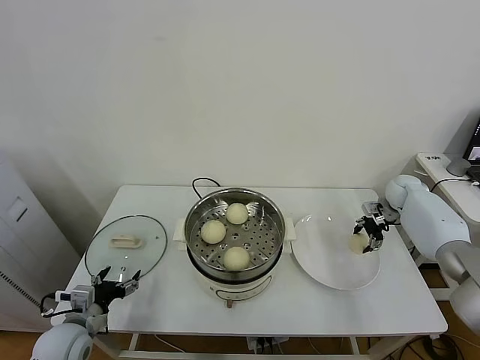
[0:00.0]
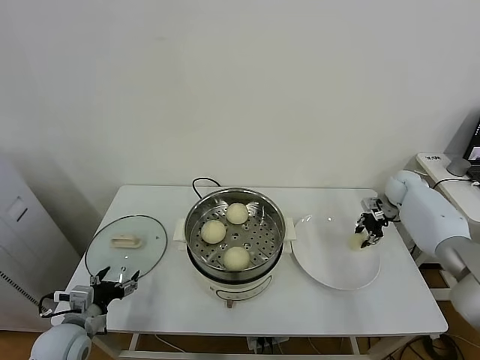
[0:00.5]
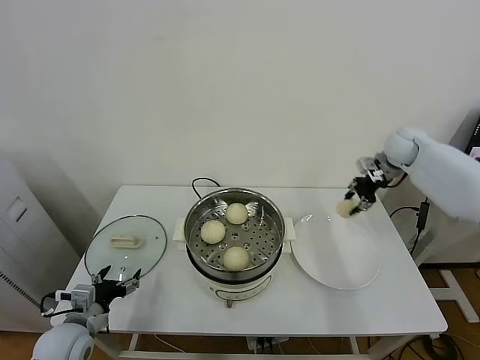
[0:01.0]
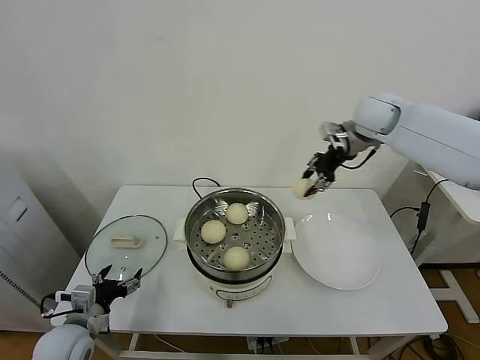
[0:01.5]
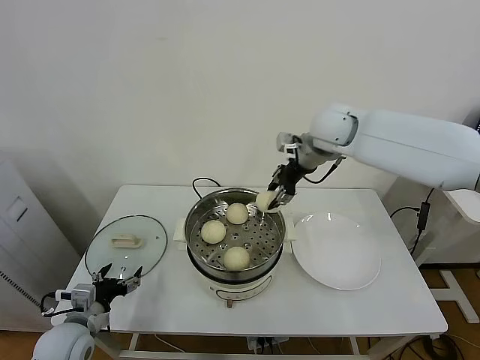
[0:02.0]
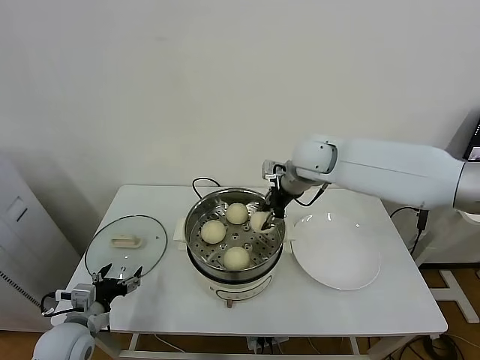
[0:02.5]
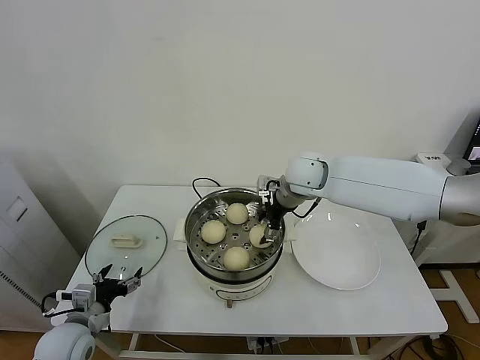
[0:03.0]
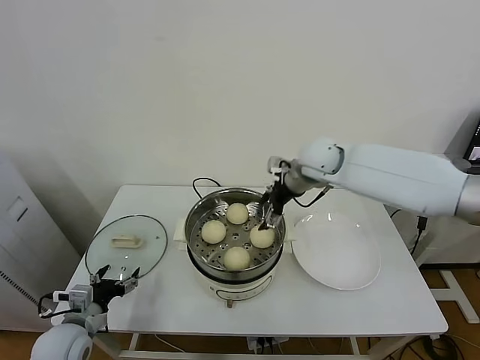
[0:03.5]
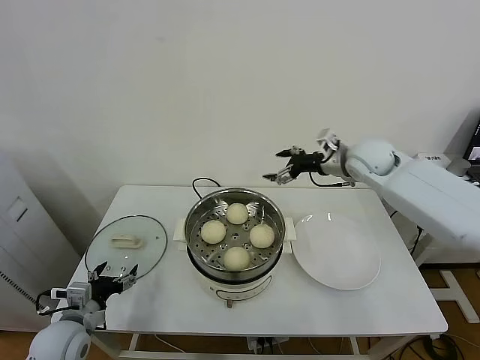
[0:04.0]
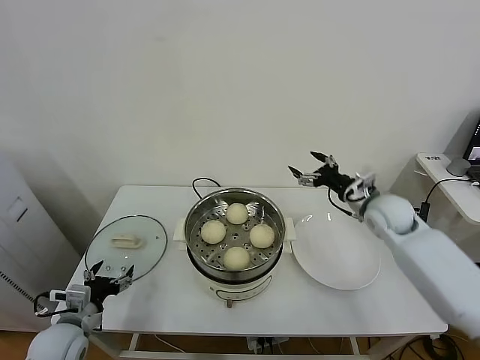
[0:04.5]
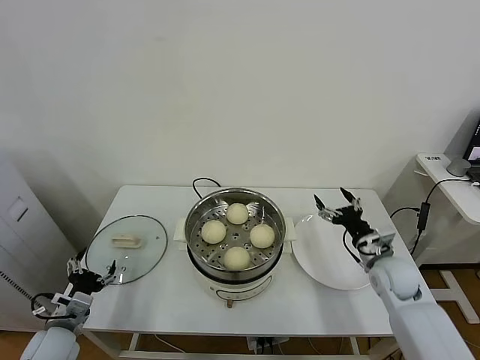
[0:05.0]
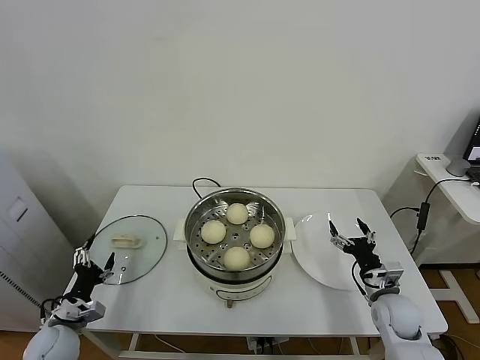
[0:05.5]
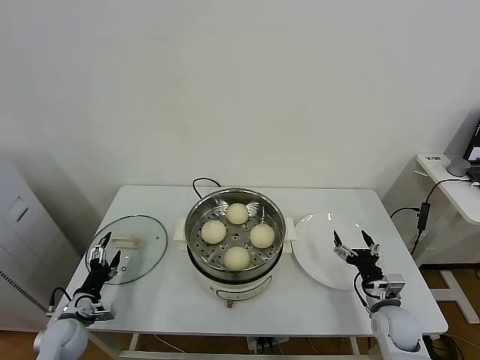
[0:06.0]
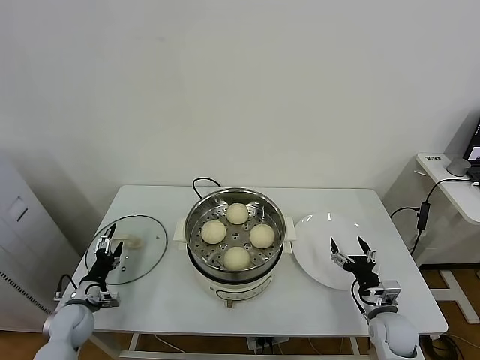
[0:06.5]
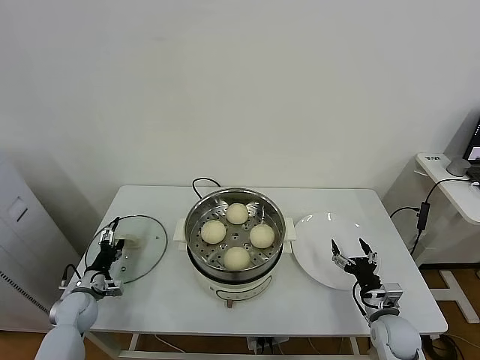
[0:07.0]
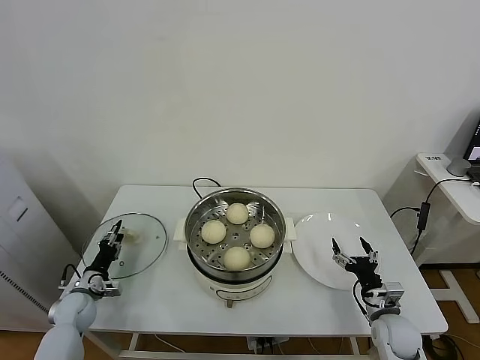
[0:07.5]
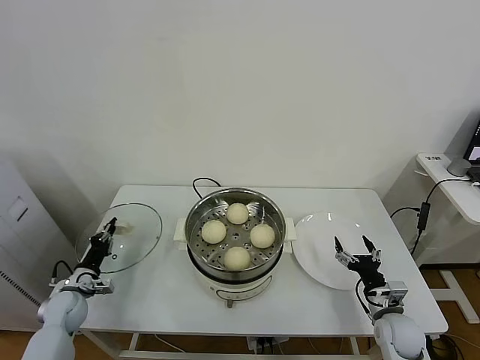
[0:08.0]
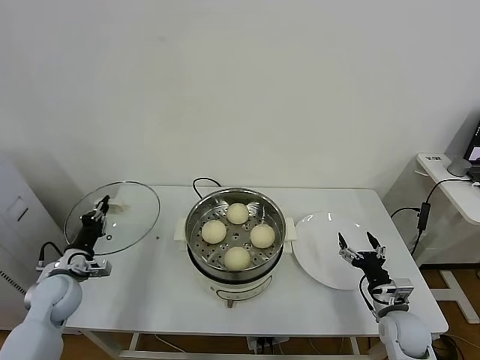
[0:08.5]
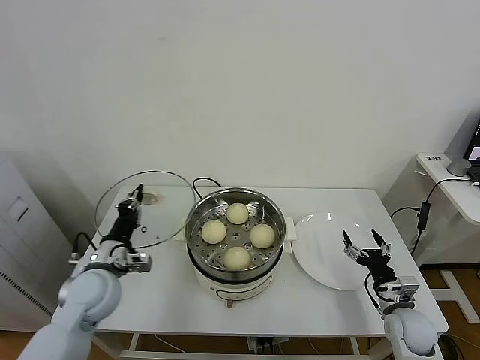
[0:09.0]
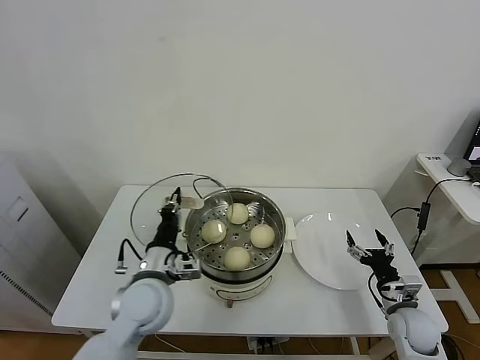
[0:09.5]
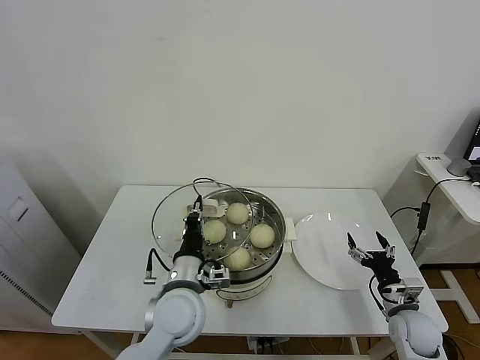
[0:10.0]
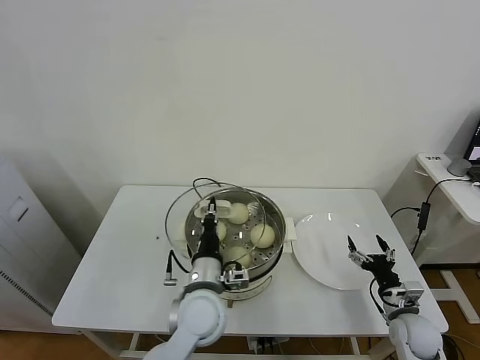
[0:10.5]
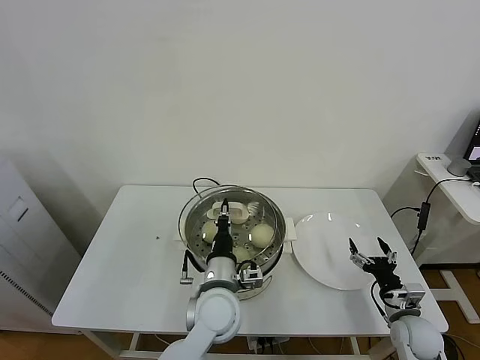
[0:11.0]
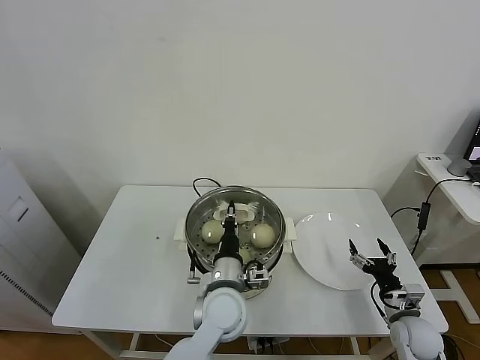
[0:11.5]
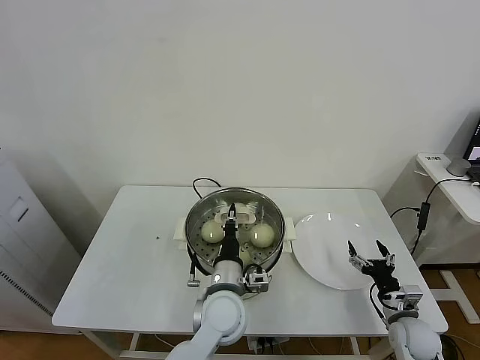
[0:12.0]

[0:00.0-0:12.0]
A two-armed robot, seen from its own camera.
Task of the whole recording: take steamed baozi put them in steamer.
Step, 0:00.5 to 0:03.0: Place the baozi on the steamer with right gripper.
Step, 0:03.5 to 0:07.5: Grasp the pot lid with left gripper.
0:00.0 to 0:02.0: The right gripper goes roughly 35 cm to the left and upward, and closes.
0:02.0 to 0:04.0: The right gripper travels to the right and downward by approximately 10 cm, and opens its fingers.
0:04.0 to 0:06.0: The right gripper travels downward and backward by approximately 40 cm. The left gripper shifts about 10 cm downward and to the left.
0:06.0 to 0:08.0: The left gripper moves forward, roughly 5 cm, and closes.
0:08.0 to 0:10.0: The left gripper heads to the right and upward, covering about 35 cm.
0:10.0 to 0:12.0: The left gripper heads to the right, covering approximately 10 cm.

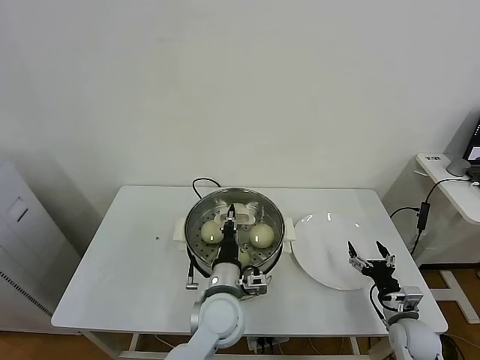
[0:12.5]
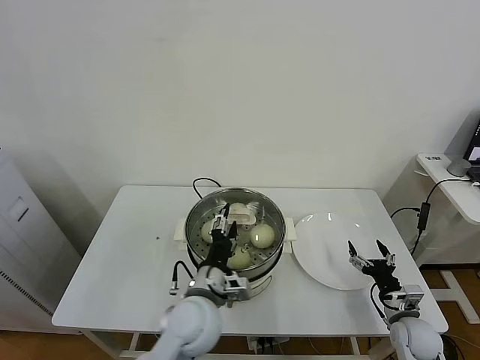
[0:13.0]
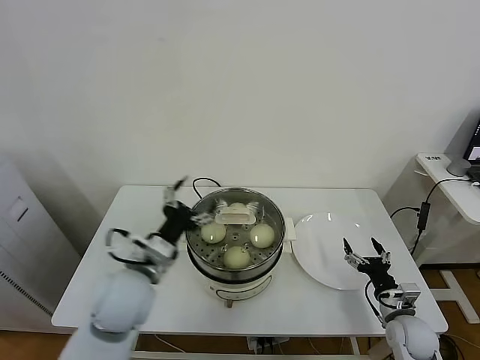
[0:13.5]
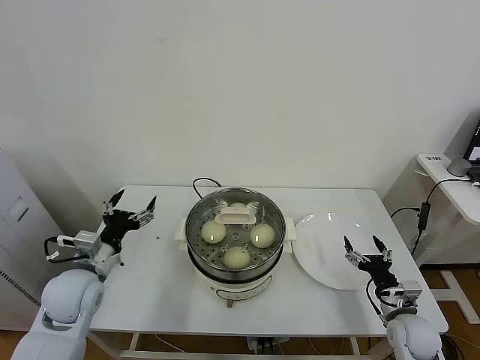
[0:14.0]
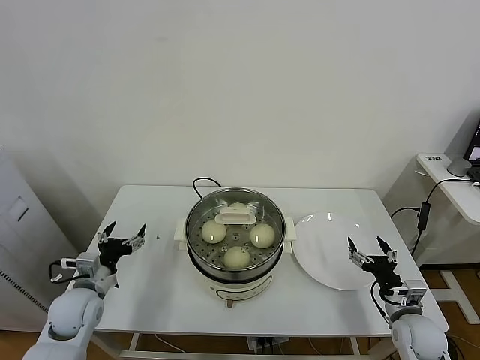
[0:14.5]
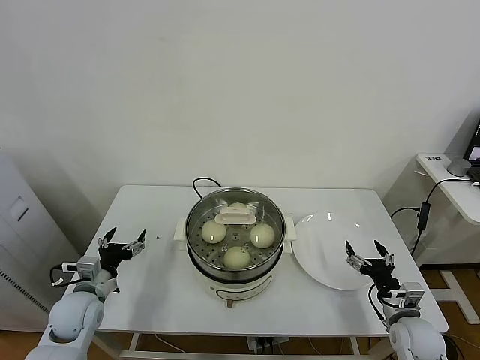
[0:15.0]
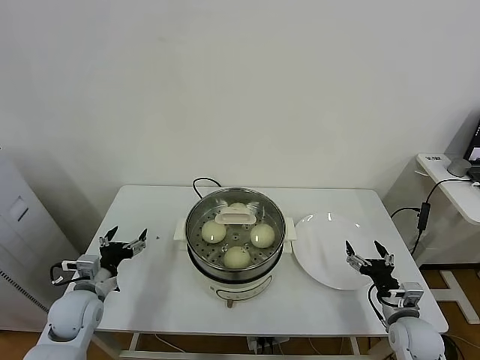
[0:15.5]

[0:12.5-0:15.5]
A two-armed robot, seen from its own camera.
Task of the whole recording: take steamed baozi put them in steamer.
0:12.5 to 0:14.0: The left gripper travels to the left by approximately 25 cm, and opens its fingers.
0:14.0 to 0:15.5: The left gripper is displaced downward by some 10 cm.

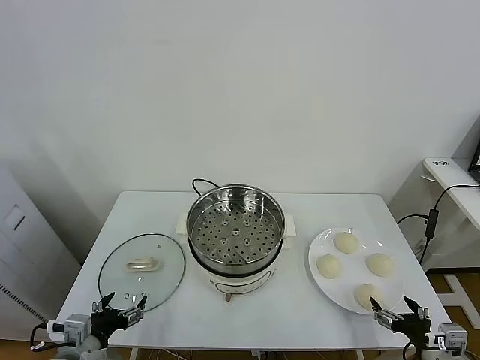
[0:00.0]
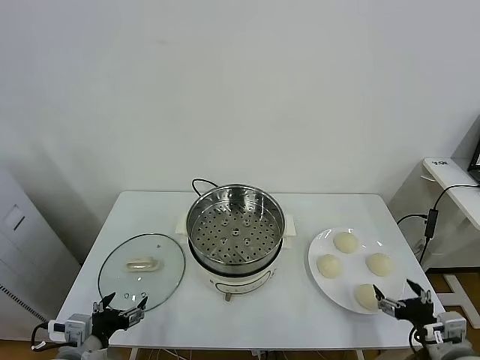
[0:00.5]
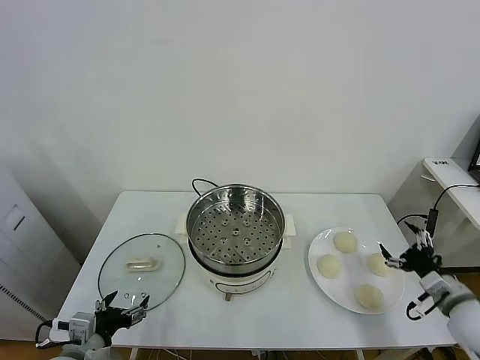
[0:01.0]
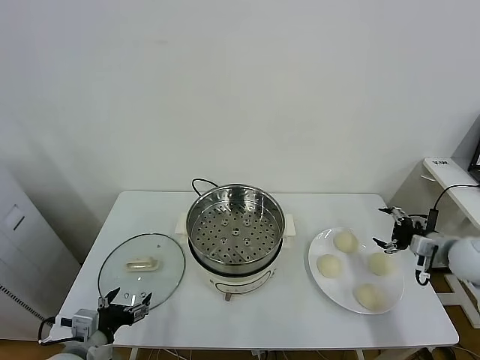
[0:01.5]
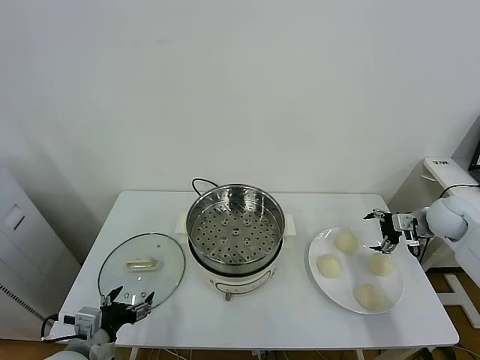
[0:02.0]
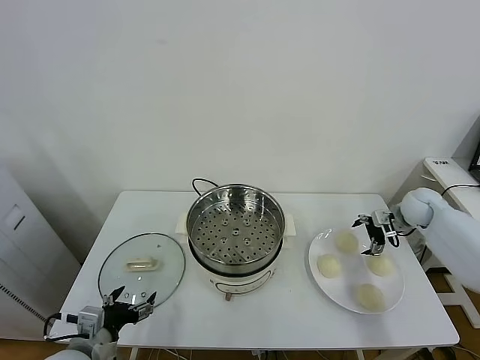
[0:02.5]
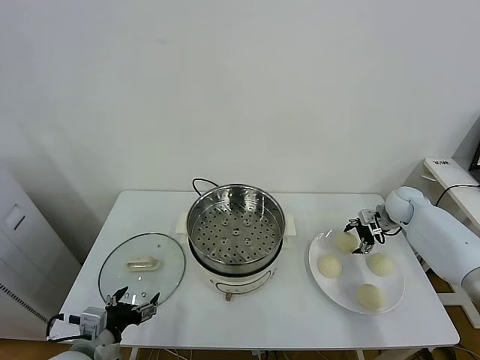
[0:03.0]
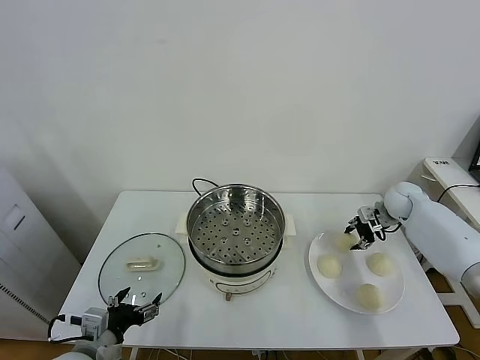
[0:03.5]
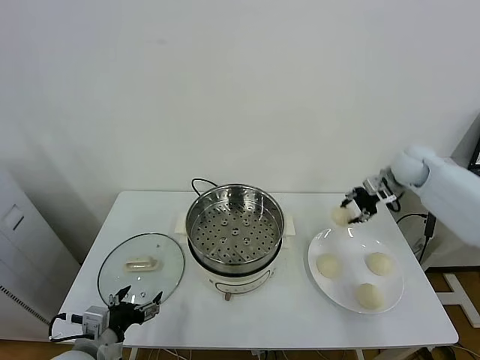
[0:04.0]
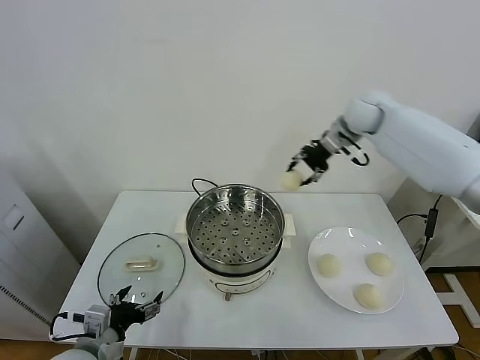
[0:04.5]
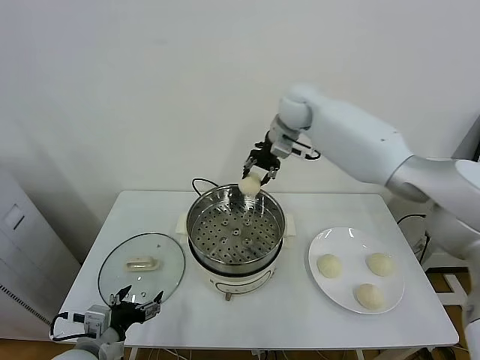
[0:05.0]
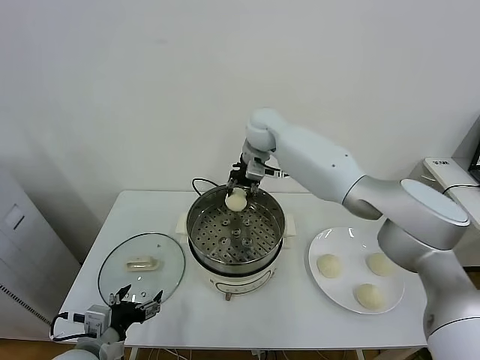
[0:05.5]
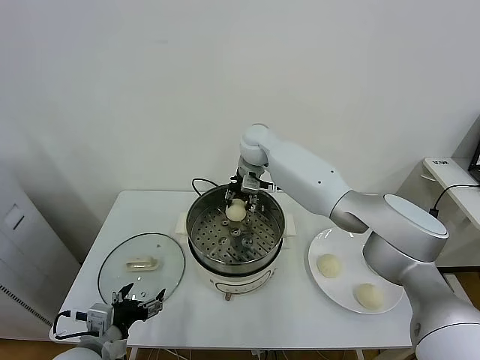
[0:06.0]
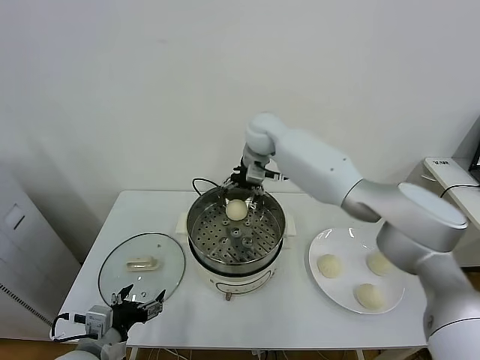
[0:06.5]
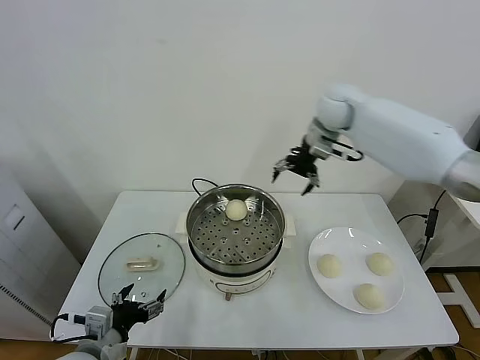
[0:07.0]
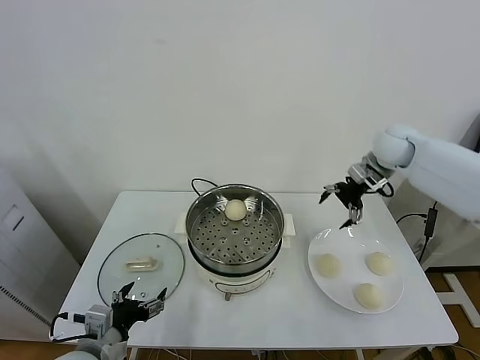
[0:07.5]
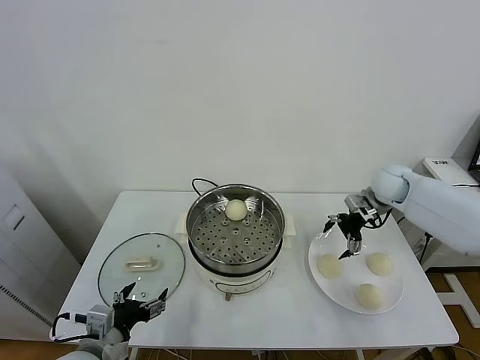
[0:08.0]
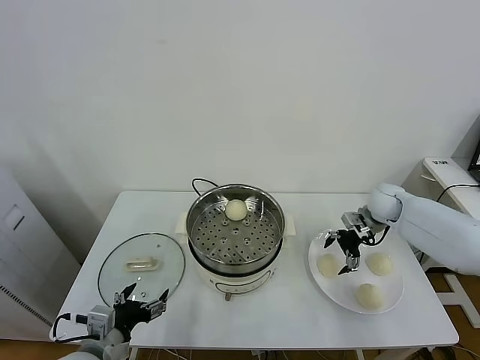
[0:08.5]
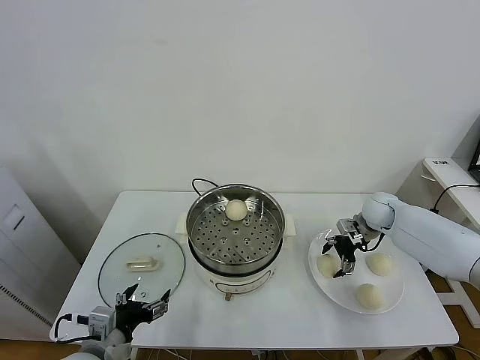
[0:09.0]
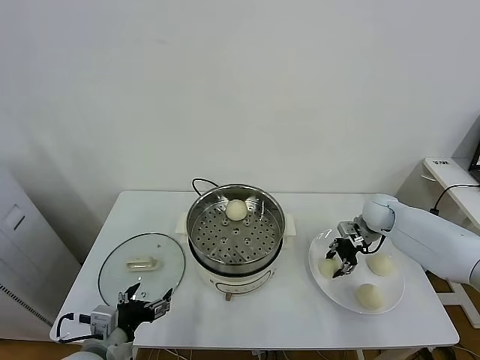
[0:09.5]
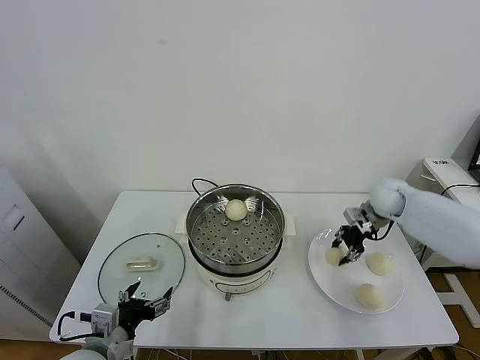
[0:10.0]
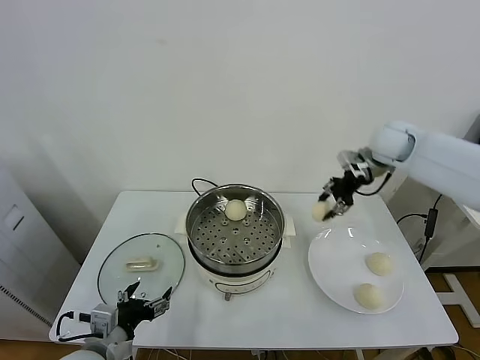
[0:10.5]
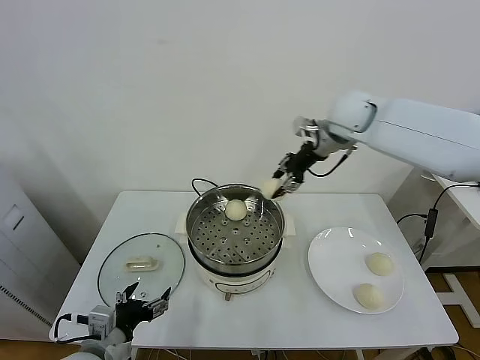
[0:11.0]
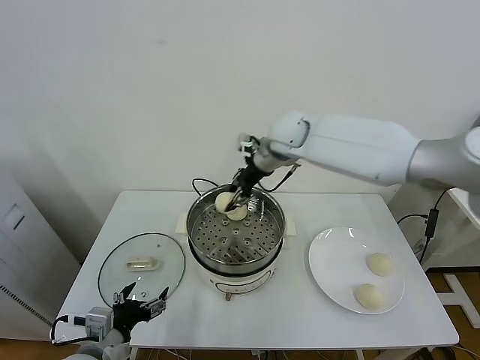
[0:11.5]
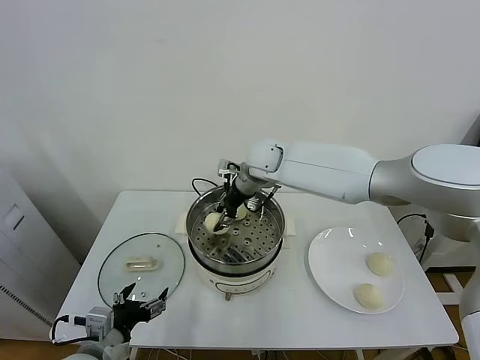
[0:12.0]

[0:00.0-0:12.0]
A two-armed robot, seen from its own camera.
Task of the whole recording: take steamed baozi put them in steamer.
Step, 0:00.0 to 0:03.0: Grasp the baozi in the plate with right gripper.
Step, 0:03.5 to 0:06.0: Place the baozi on the steamer with right gripper.
Step, 0:06.5 to 0:09.0: Grasp the baozi in the plate with right gripper.
0:02.0 to 0:04.0: The right gripper heads upward, to the left and forward, covering approximately 15 cm, and closes.
0:04.0 to 0:06.0: The right gripper travels to the left by some 35 cm.
0:06.0 to 0:08.0: The right gripper moves to the right, about 35 cm, and opens its fingers.
0:08.0 to 0:10.0: The right gripper moves approximately 10 cm downward and comes back, and closes its fingers.
0:10.0 to 0:12.0: The right gripper heads to the left, covering approximately 30 cm.
